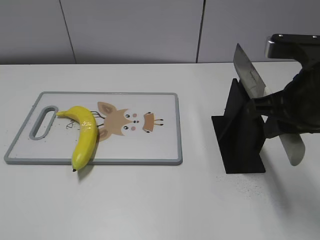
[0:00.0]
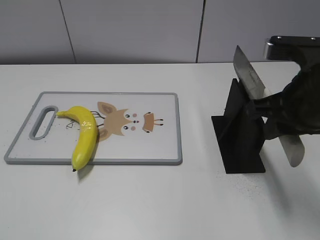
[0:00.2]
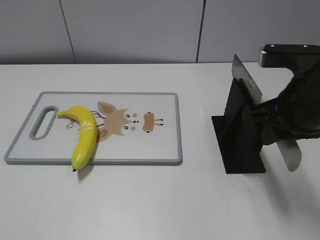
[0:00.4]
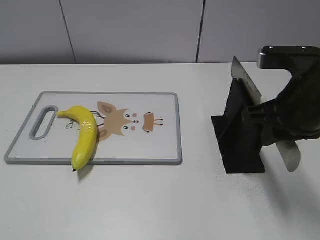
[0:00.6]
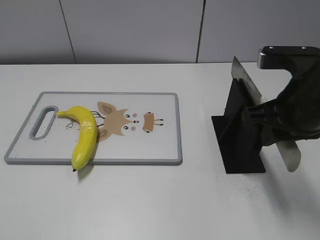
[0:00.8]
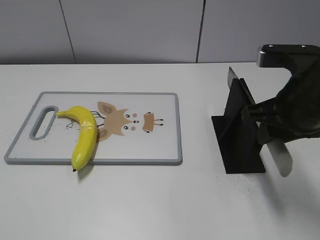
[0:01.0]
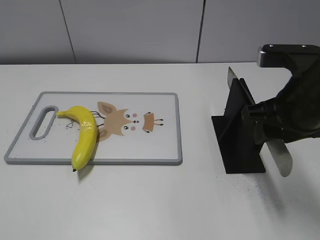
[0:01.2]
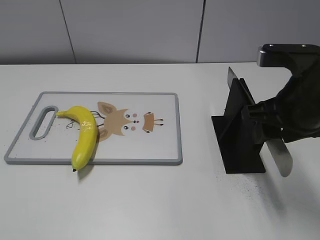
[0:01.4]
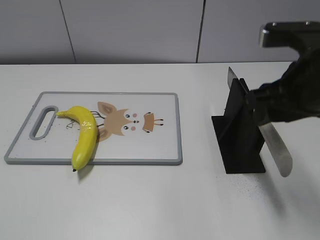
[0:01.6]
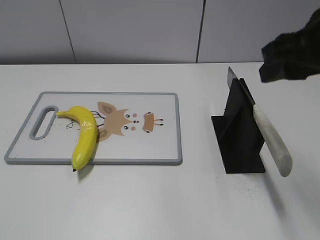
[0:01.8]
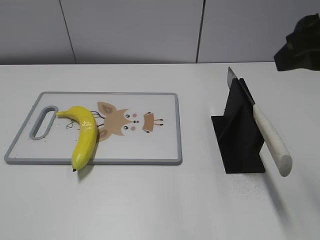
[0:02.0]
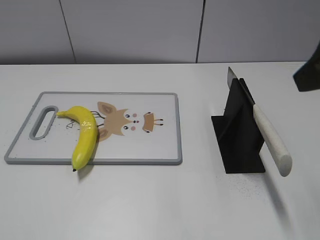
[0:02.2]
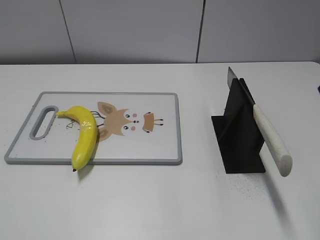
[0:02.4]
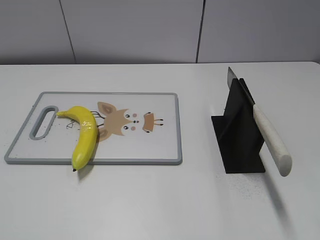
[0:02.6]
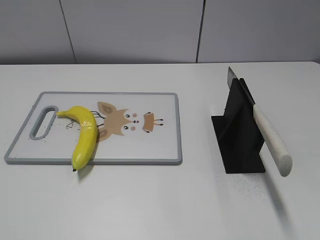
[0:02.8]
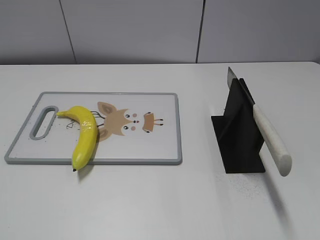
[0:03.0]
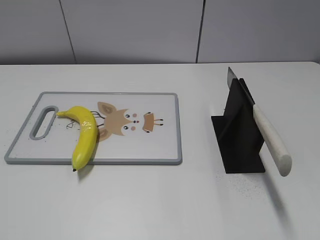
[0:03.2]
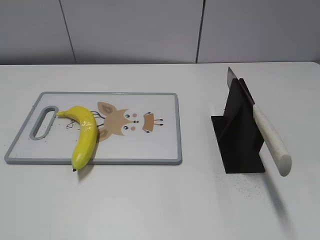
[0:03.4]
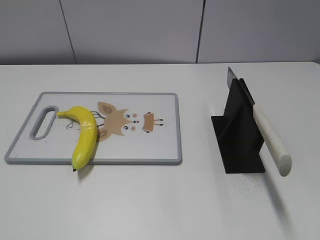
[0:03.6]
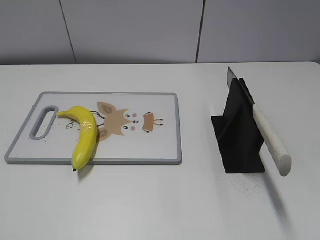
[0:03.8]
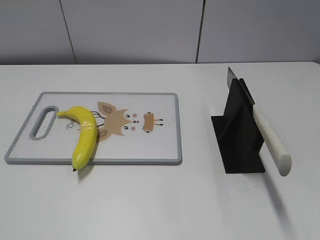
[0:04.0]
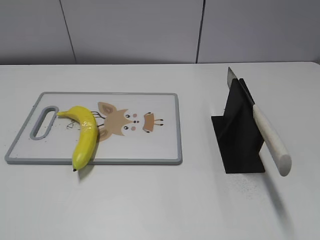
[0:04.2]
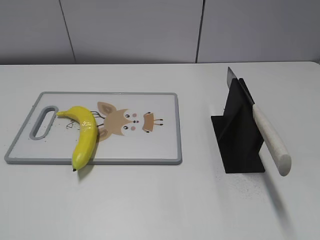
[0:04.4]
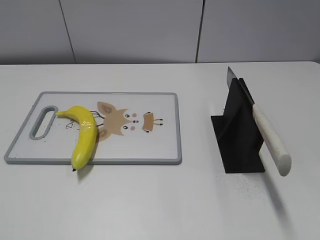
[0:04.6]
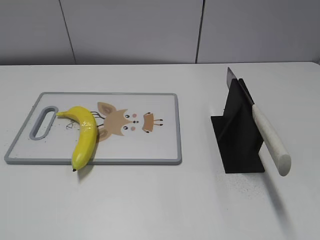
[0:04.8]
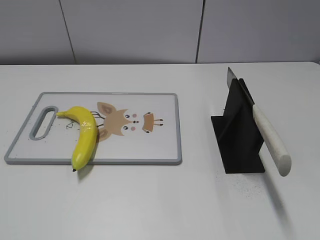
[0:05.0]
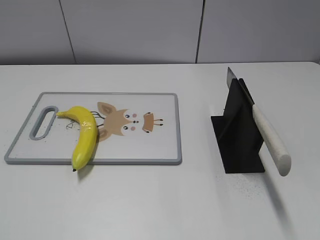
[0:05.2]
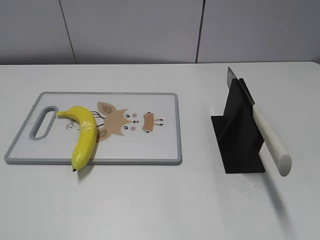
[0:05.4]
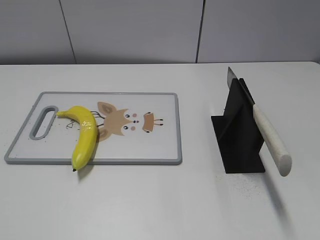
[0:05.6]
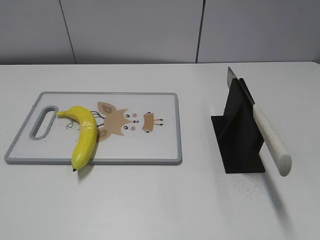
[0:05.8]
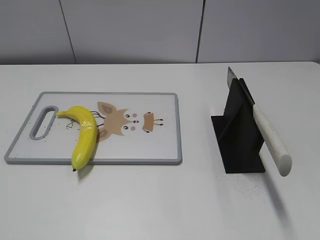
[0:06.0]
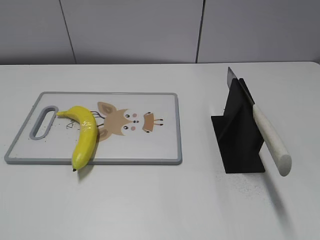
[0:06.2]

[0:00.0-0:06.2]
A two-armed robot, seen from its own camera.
Task of the whole recording: cut plastic banana.
Step, 0:00.0 to 0:06.2: Place the knife on the storage rack with your right hand.
0:00.0 to 0:01.6: The right gripper opens its fingers.
0:01.6 to 0:03.2: The right gripper travels backward and to the right by about 20 cm.
